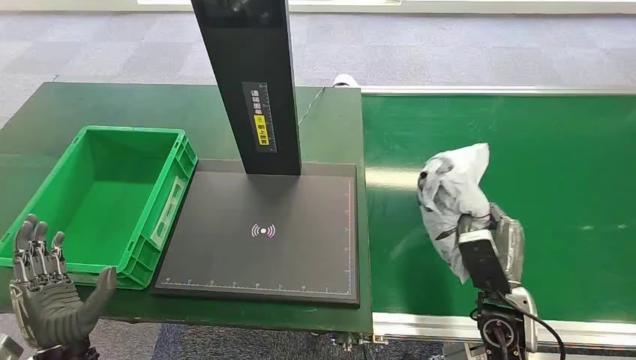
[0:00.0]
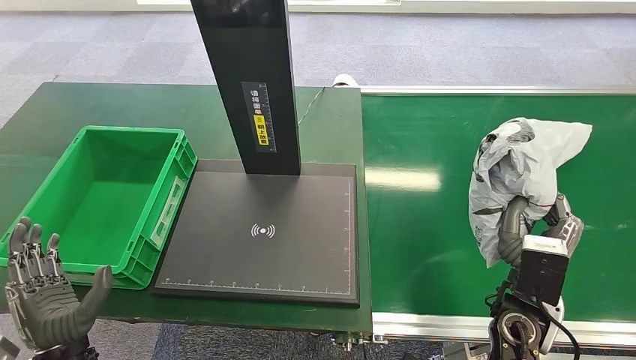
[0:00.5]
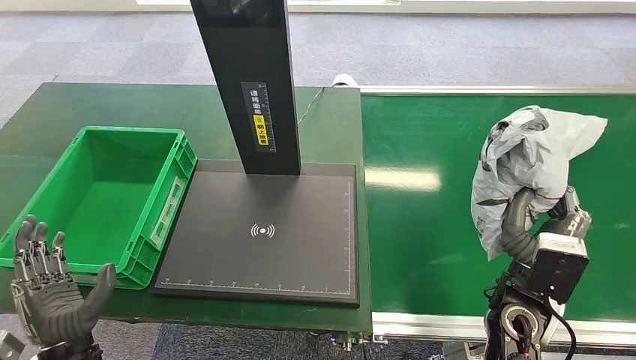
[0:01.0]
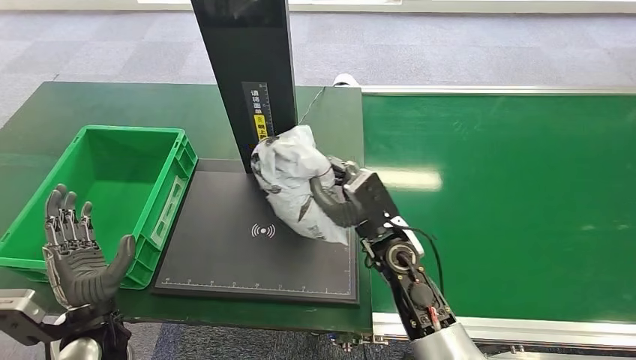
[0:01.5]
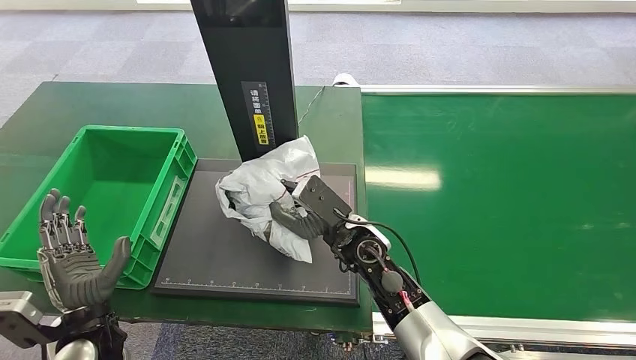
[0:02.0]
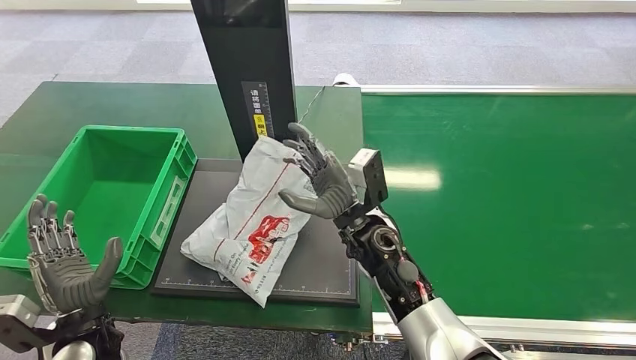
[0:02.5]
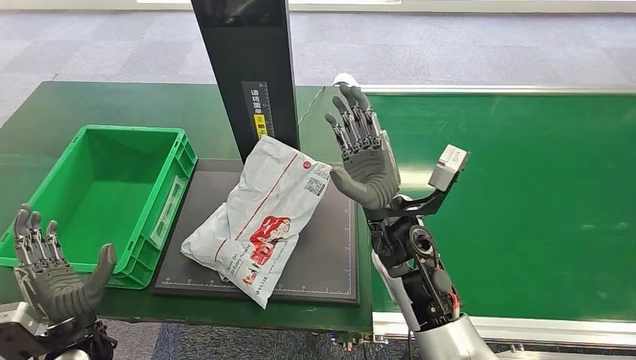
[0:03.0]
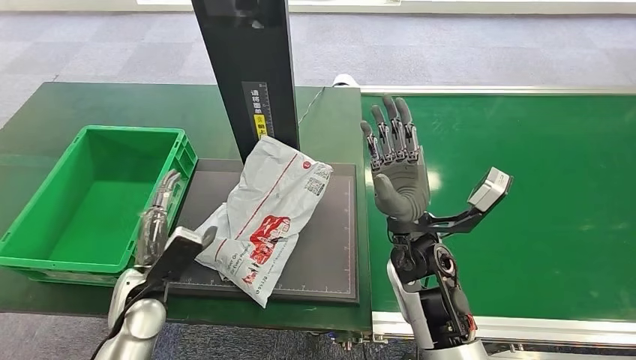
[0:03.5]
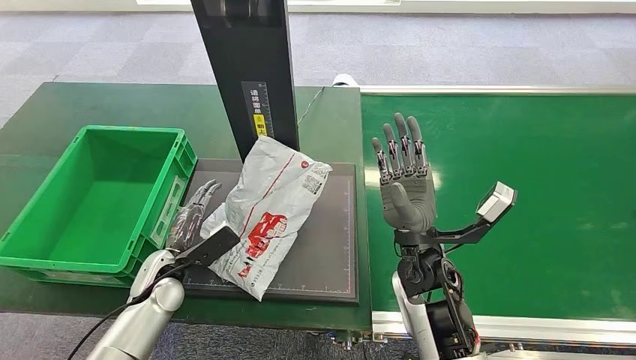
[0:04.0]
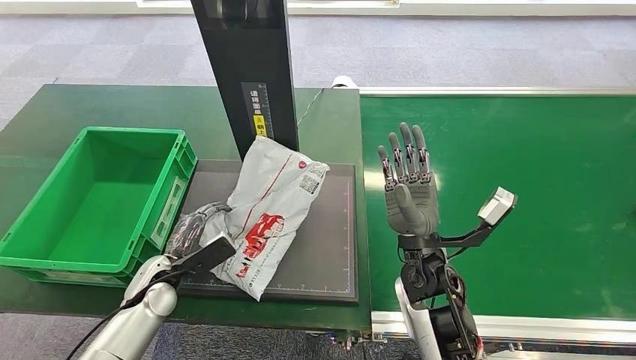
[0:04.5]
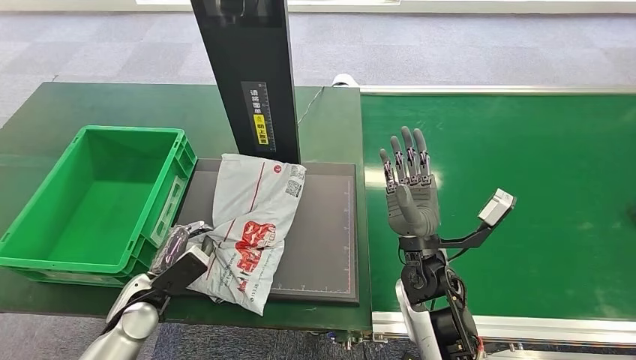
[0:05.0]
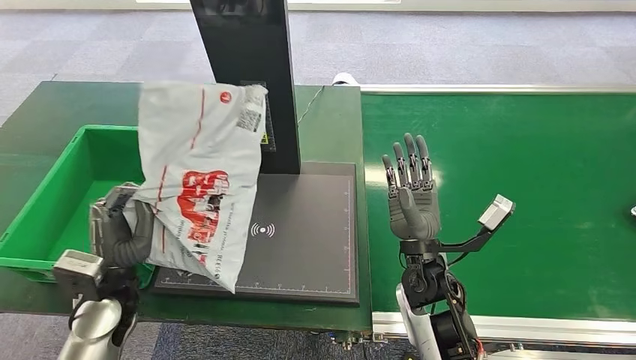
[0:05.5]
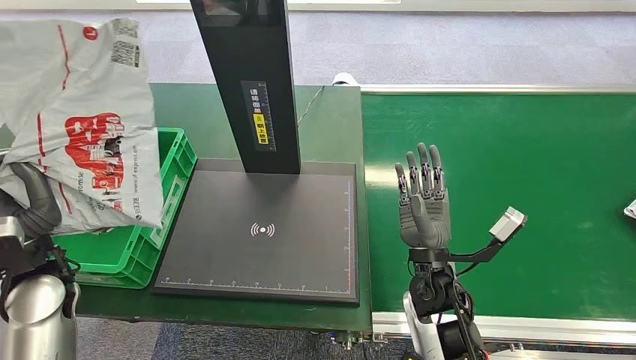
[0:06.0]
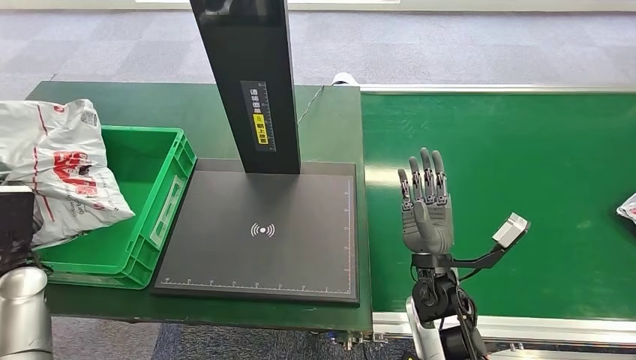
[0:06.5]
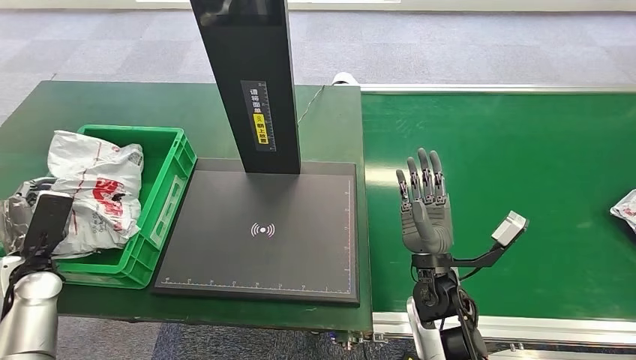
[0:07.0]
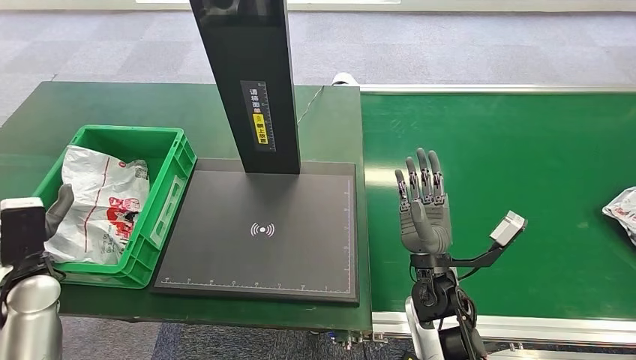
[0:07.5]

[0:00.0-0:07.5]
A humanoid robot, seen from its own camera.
Task of the whole recording: Weigh the package on the weighing device and place it in the left basket.
0:02.0 to 0:04.0: The left hand heads forward, covering roughly 10 cm; the right hand shifts about 5 cm to the right.

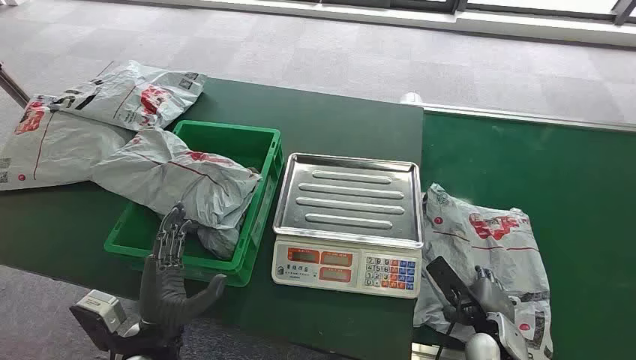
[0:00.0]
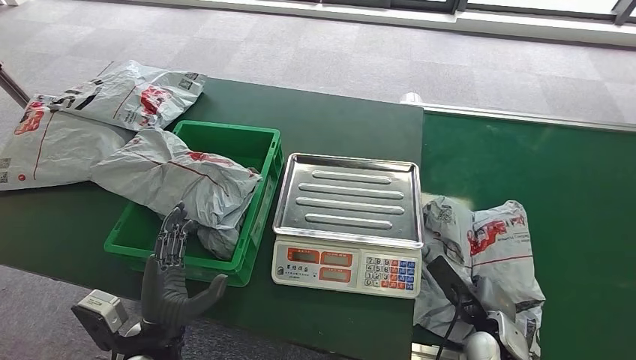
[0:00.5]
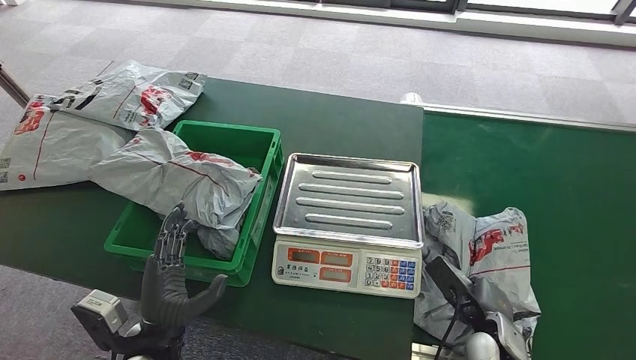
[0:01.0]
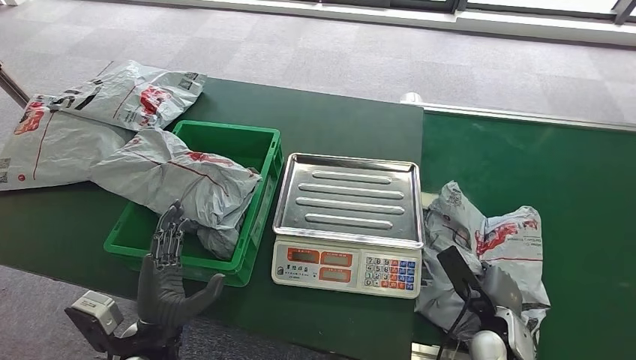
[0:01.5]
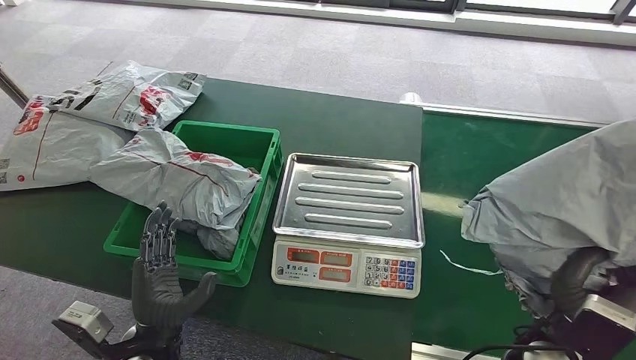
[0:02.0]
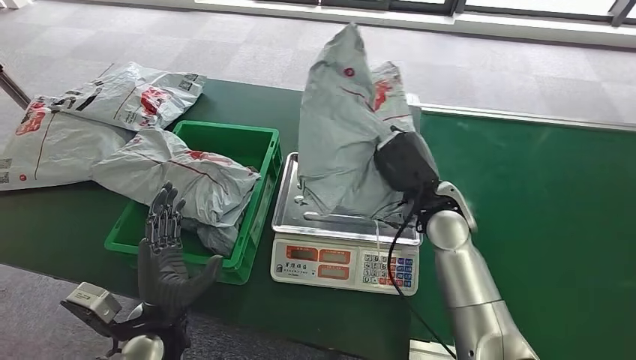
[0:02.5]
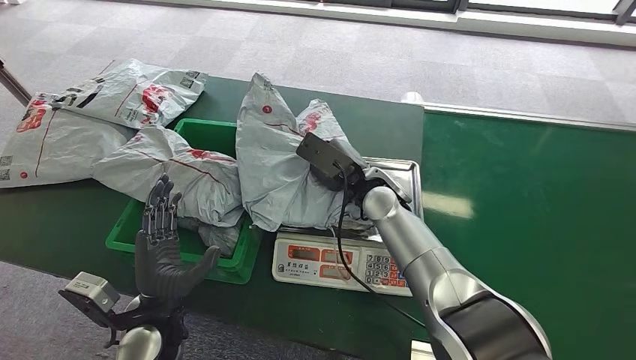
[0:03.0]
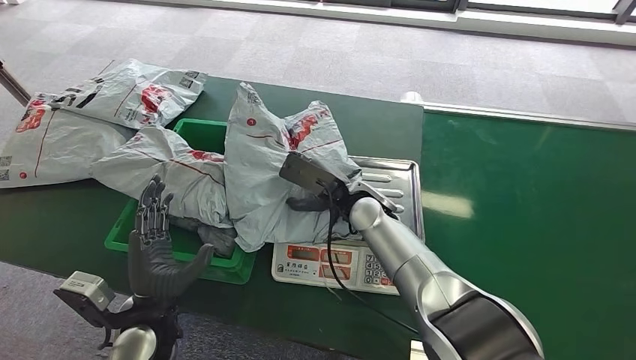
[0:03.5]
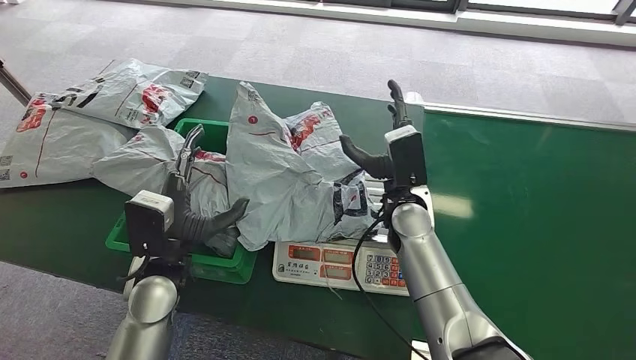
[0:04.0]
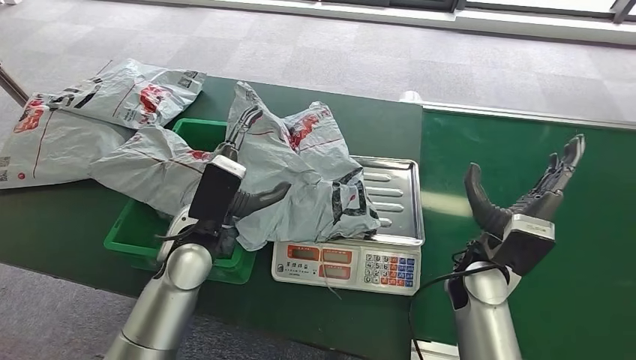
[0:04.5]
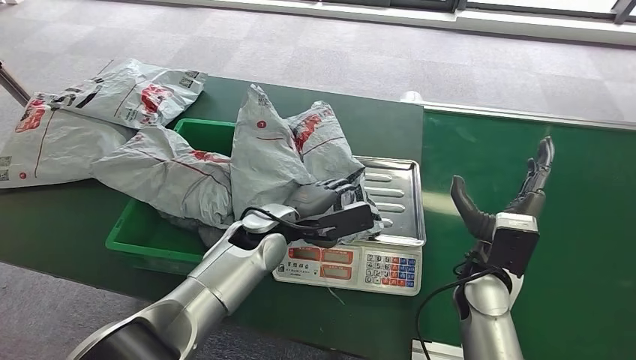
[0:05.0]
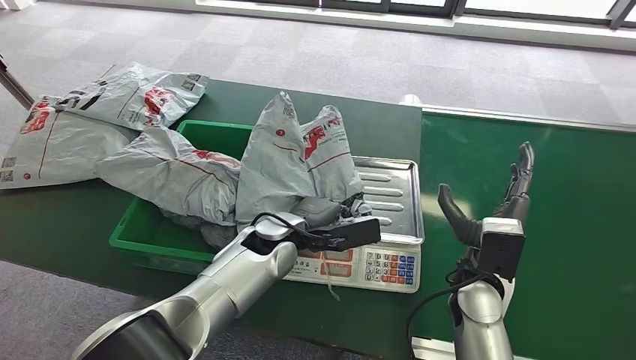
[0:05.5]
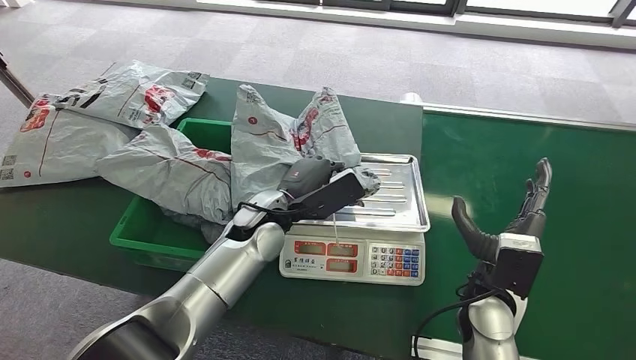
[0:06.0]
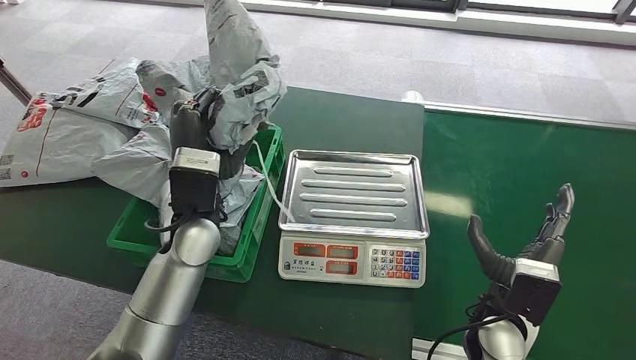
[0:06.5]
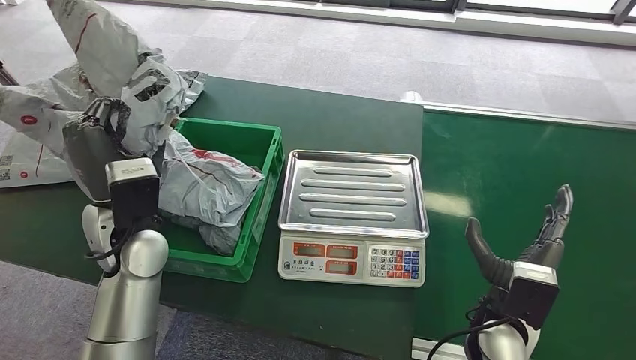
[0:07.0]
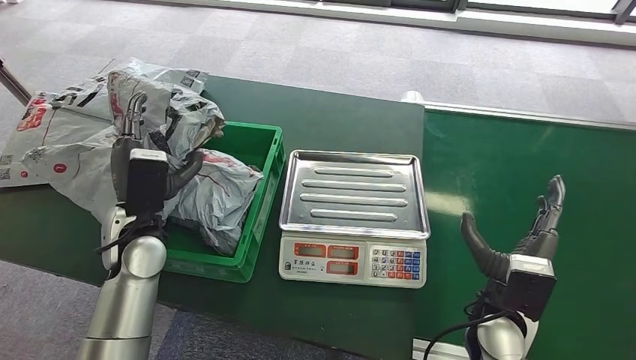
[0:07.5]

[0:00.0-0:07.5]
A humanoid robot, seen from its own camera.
Task of the whole recording: Weigh the package on the weighing device and place it in the left basket.
Step, 0:00.0 to 0:02.0: Pick up the package from the conveyor belt.
Step, 0:02.5 to 0:03.5: Place the package onto the inbound machine.
Step, 0:06.5 to 0:07.5: Place the package into the parcel locker.
